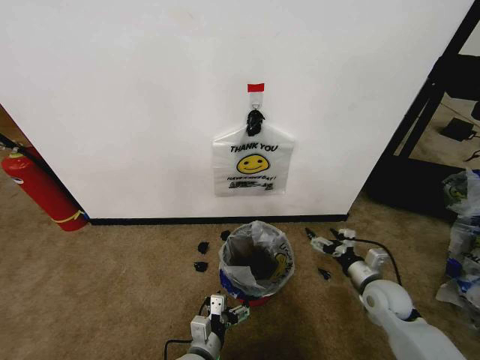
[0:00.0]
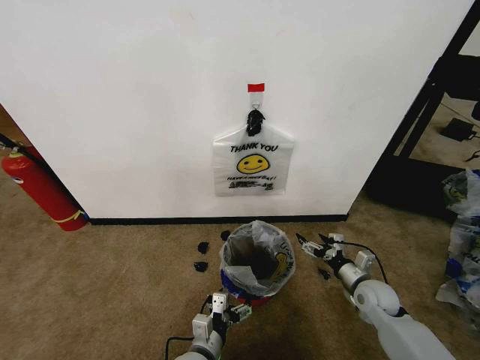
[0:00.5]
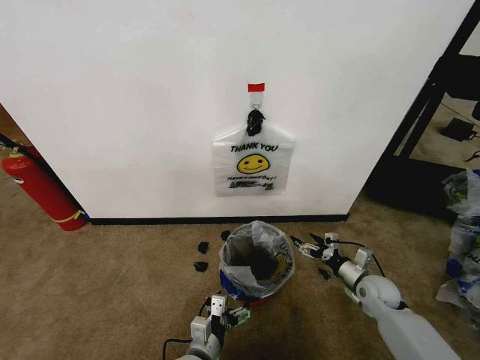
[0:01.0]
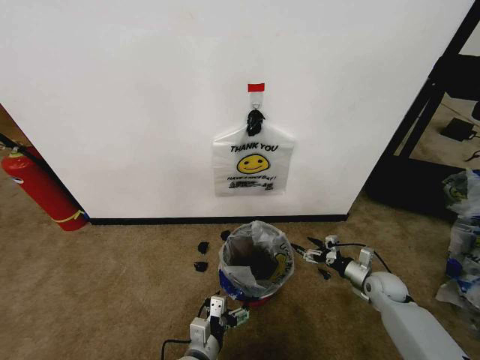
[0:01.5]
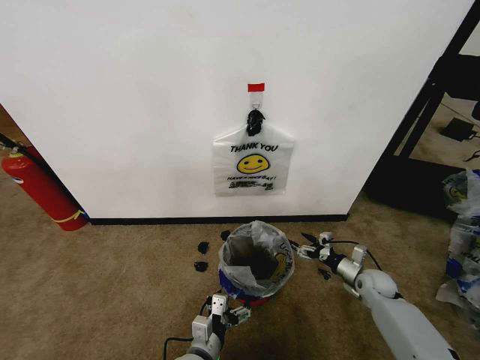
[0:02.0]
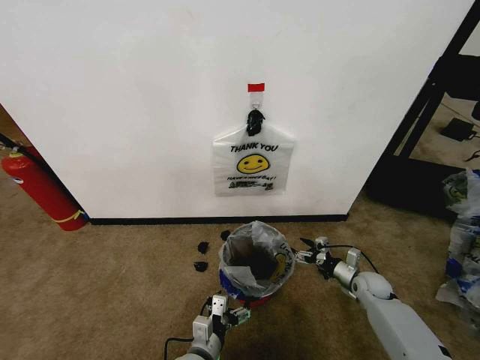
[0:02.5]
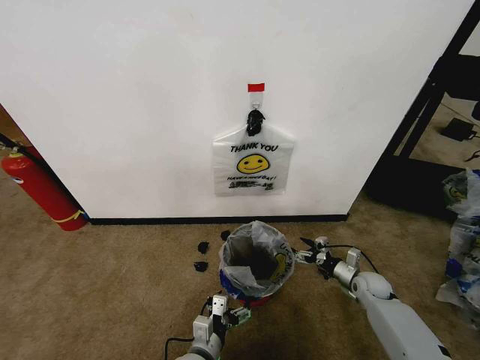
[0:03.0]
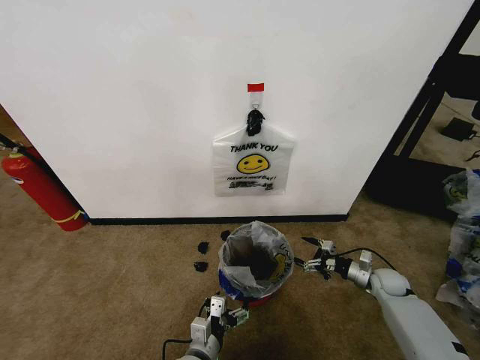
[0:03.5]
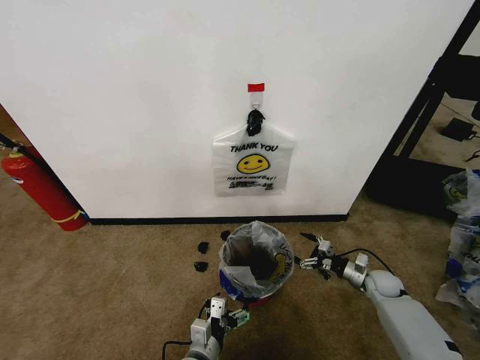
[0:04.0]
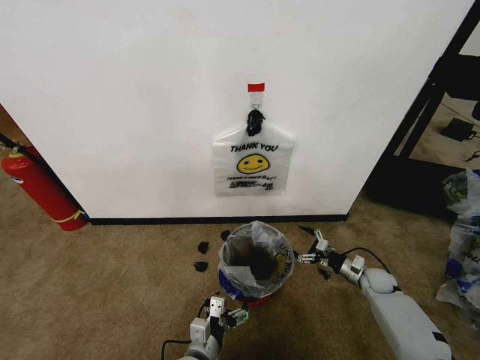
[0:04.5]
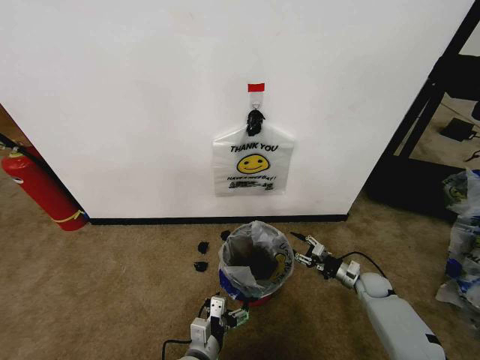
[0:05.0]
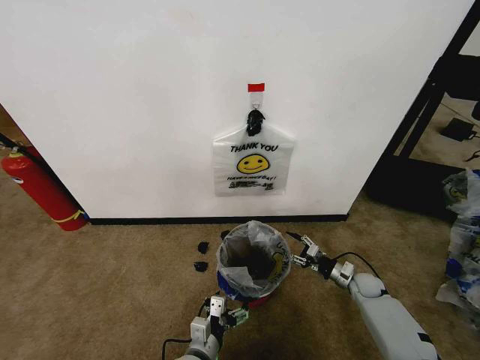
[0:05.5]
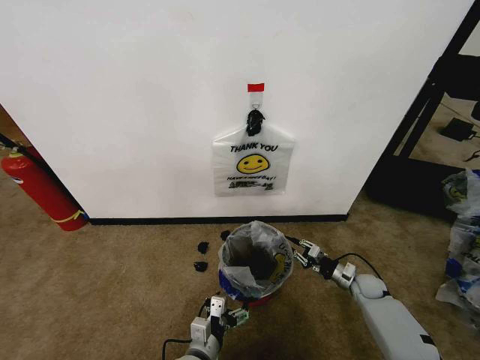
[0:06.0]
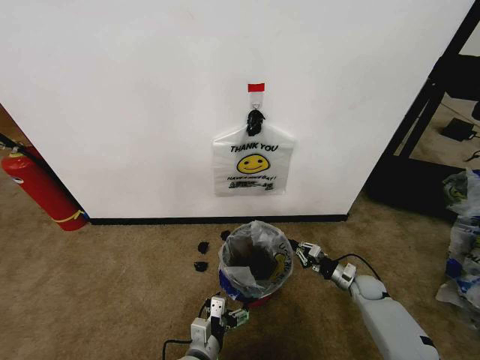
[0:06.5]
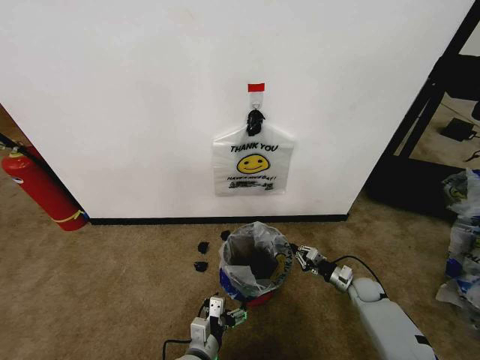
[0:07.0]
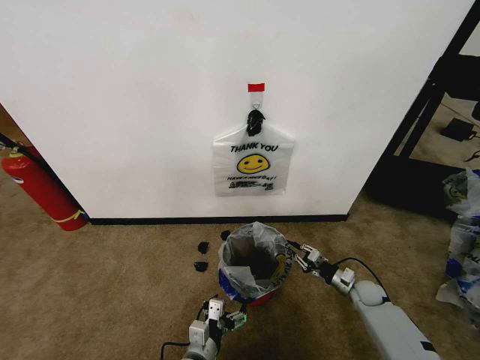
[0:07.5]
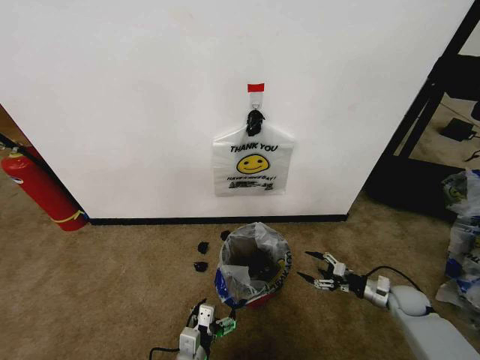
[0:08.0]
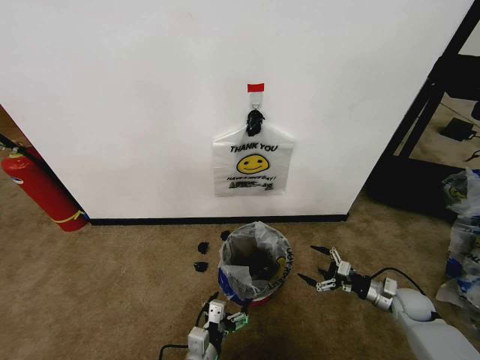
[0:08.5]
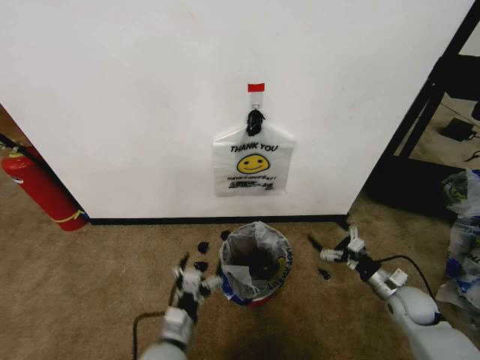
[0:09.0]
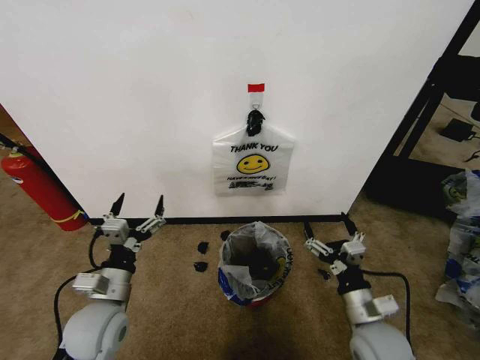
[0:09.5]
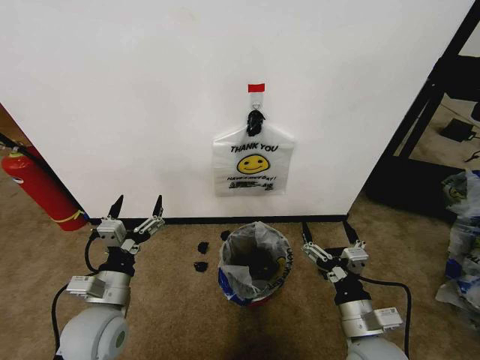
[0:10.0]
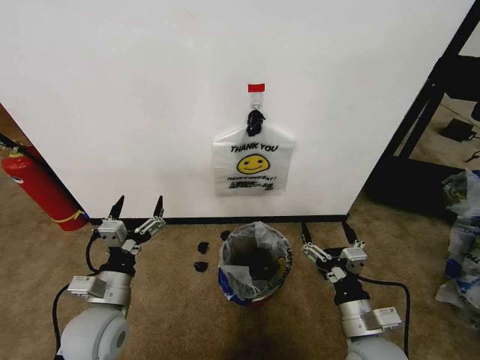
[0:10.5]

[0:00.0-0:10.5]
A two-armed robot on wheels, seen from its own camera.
Task of the whole recording: Pick up the garbage bag from the wall and place it over the trash bin.
0:00.0 to 0:02.0: The right gripper travels downward and forward by roughly 10 cm.
0:04.0 to 0:06.5: The right gripper closes.
0:06.5 to 0:08.5: The right gripper shifts roughly 10 cm backward, to the right and upward, and opens.
0:08.5 to 0:10.5: The left gripper goes approximately 25 cm upward, to the left and forward. Meanwhile the right gripper travels to the left, backward and upward by roughly 30 cm.
